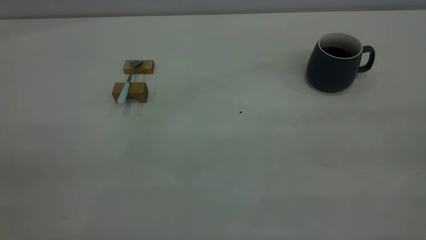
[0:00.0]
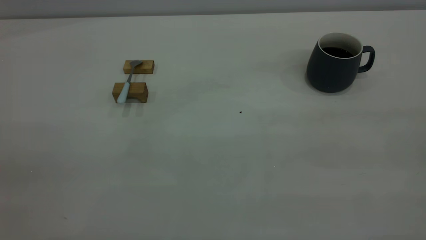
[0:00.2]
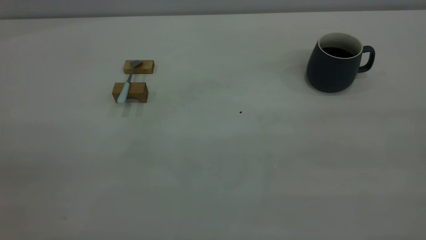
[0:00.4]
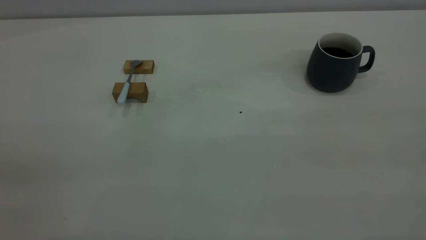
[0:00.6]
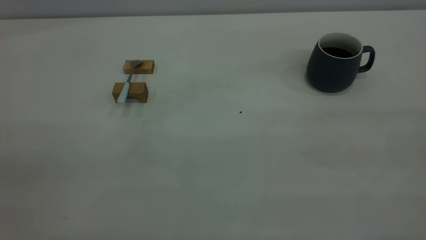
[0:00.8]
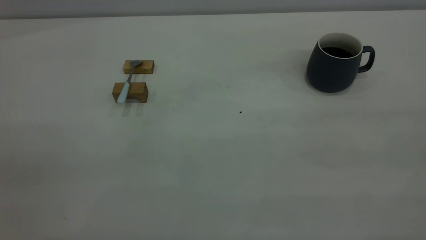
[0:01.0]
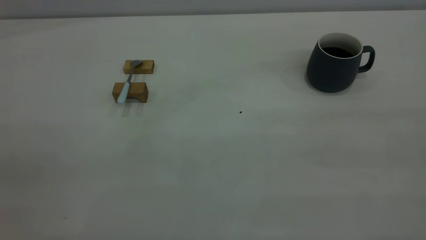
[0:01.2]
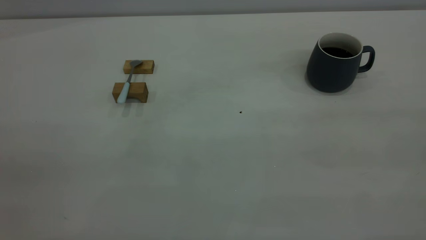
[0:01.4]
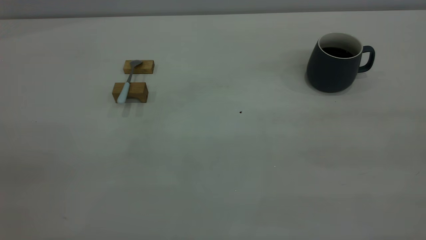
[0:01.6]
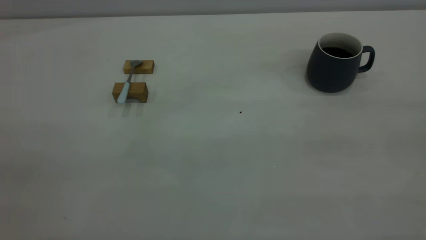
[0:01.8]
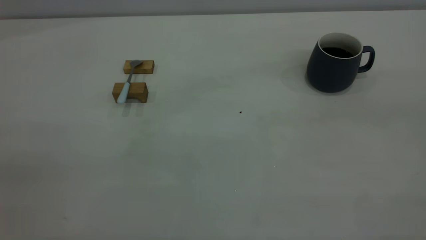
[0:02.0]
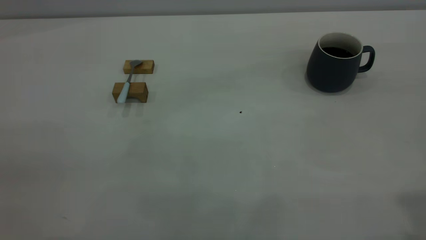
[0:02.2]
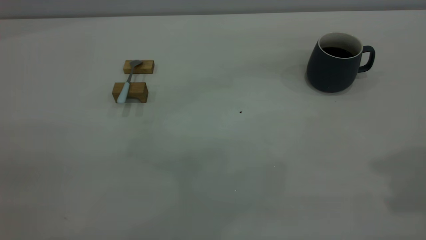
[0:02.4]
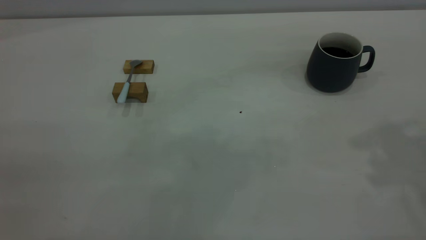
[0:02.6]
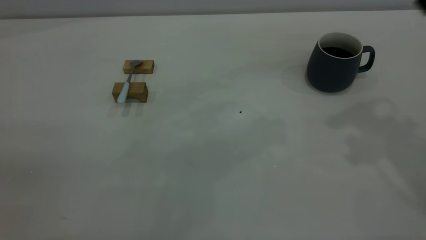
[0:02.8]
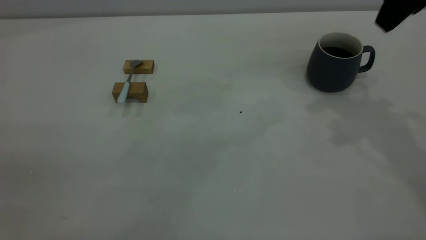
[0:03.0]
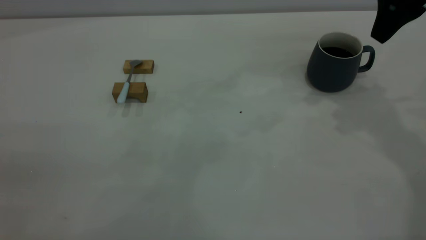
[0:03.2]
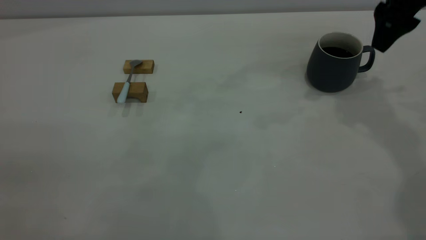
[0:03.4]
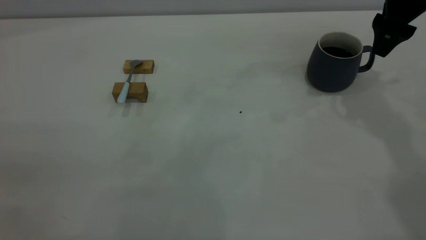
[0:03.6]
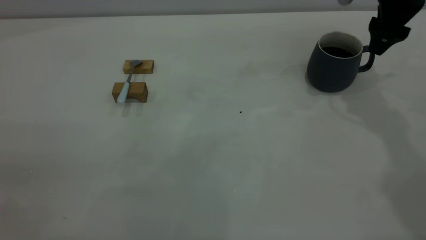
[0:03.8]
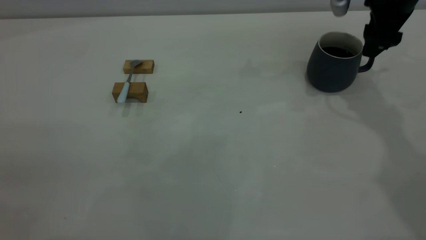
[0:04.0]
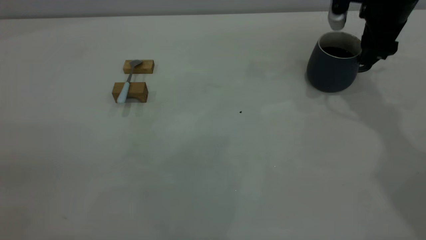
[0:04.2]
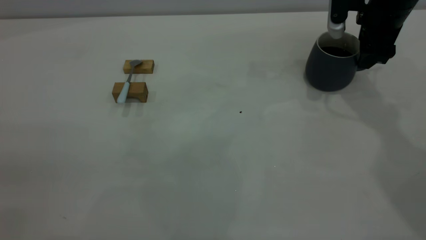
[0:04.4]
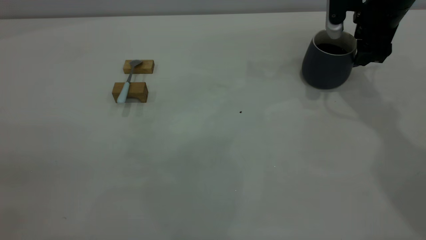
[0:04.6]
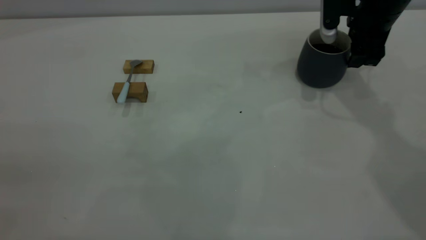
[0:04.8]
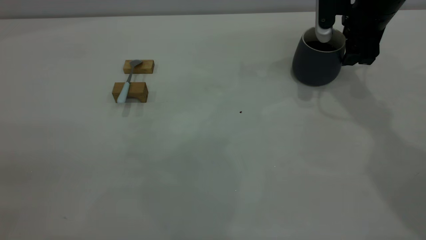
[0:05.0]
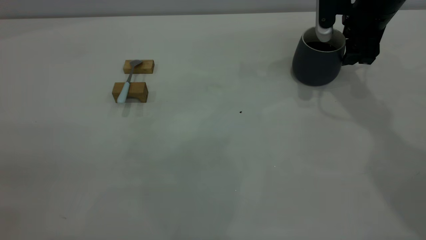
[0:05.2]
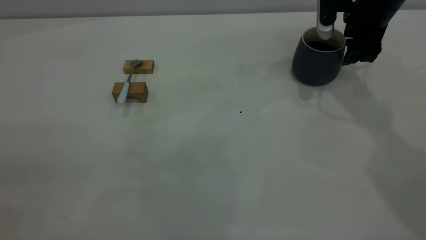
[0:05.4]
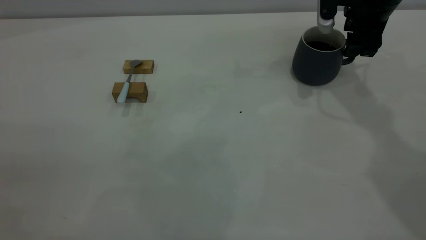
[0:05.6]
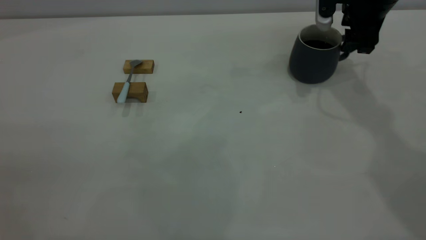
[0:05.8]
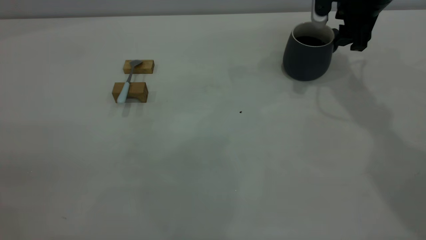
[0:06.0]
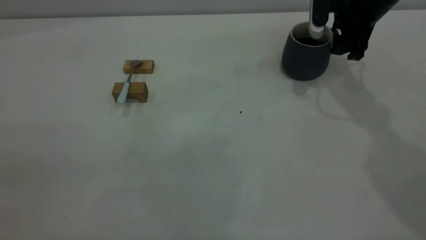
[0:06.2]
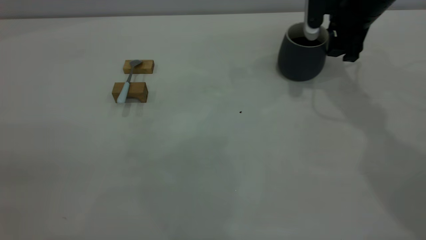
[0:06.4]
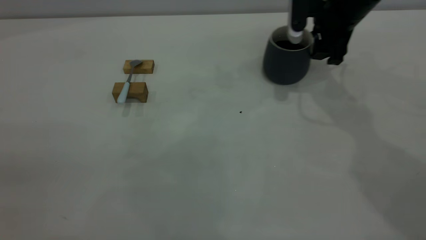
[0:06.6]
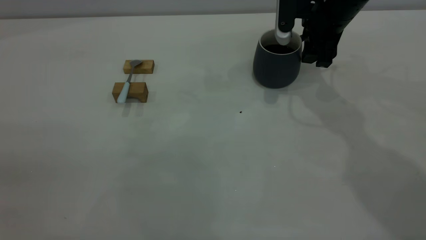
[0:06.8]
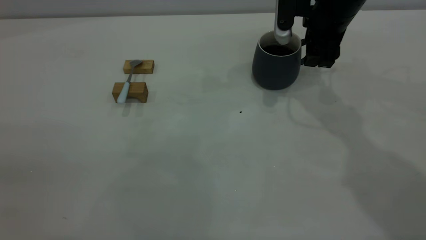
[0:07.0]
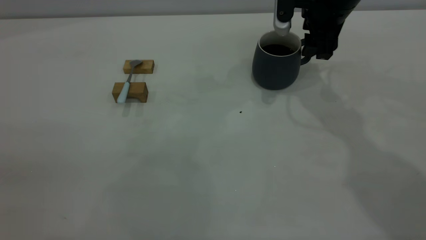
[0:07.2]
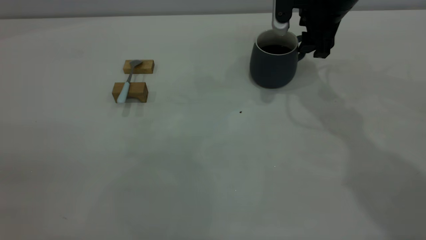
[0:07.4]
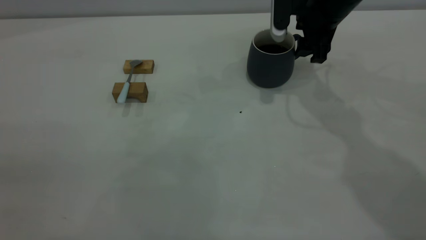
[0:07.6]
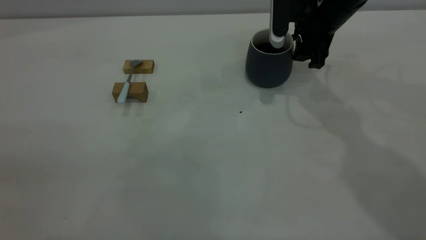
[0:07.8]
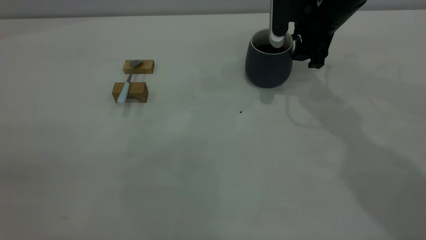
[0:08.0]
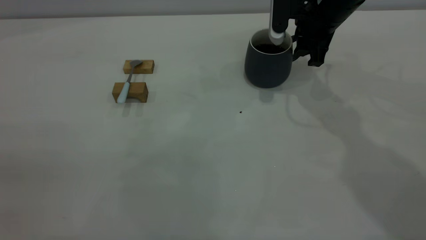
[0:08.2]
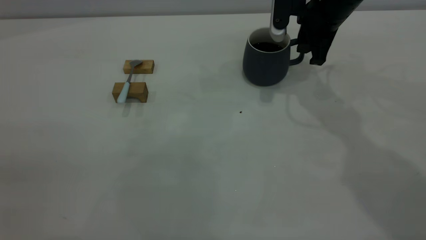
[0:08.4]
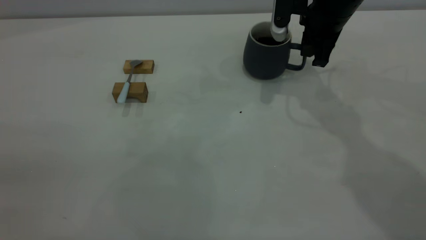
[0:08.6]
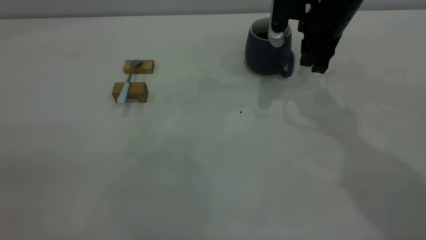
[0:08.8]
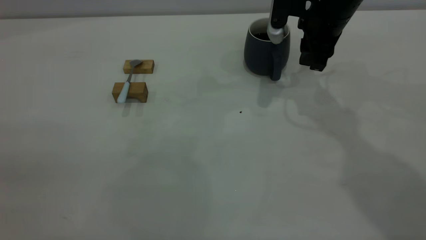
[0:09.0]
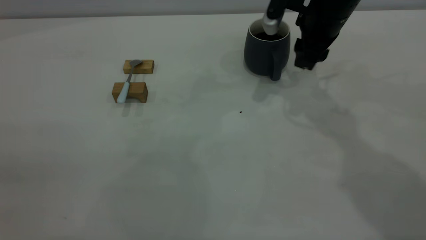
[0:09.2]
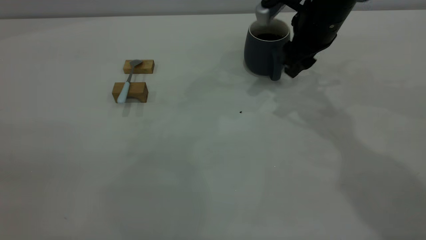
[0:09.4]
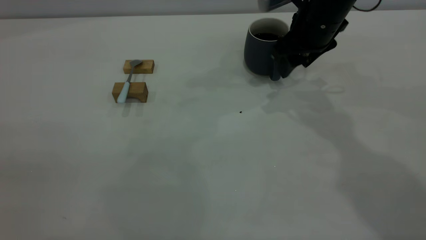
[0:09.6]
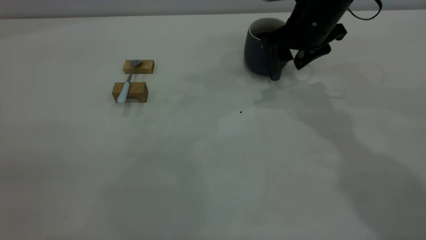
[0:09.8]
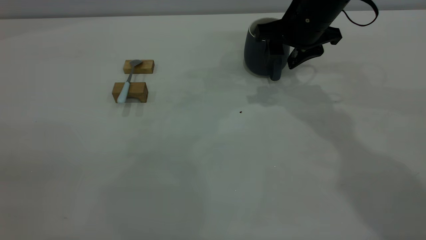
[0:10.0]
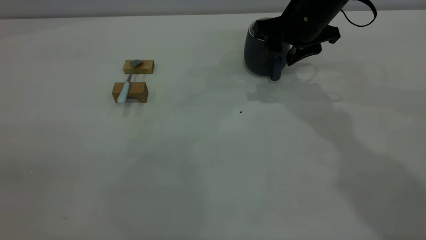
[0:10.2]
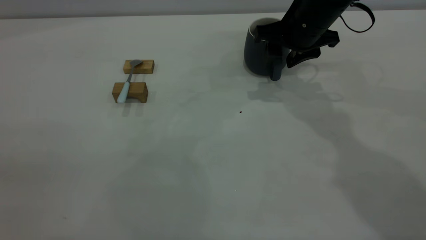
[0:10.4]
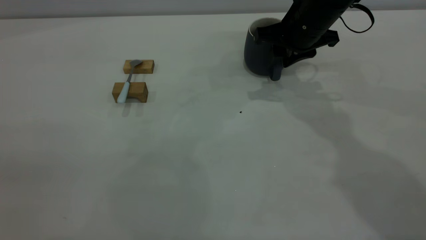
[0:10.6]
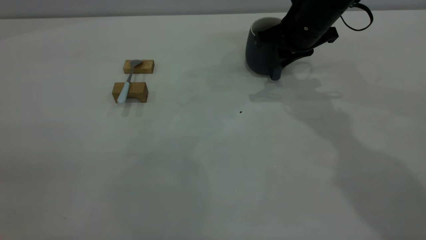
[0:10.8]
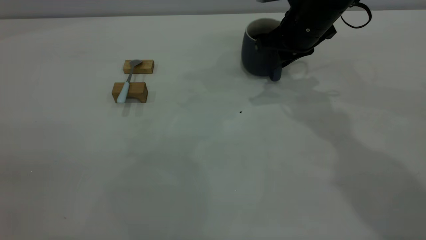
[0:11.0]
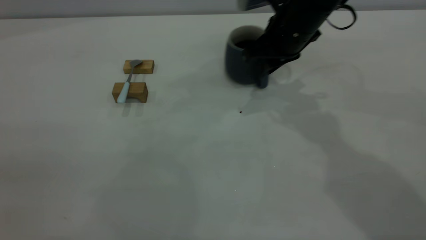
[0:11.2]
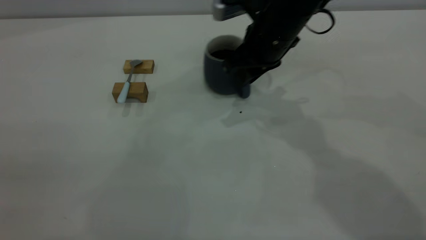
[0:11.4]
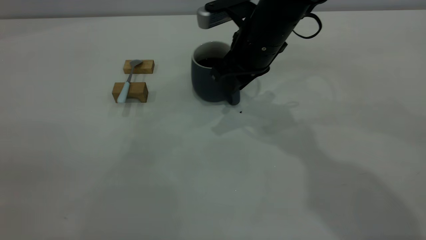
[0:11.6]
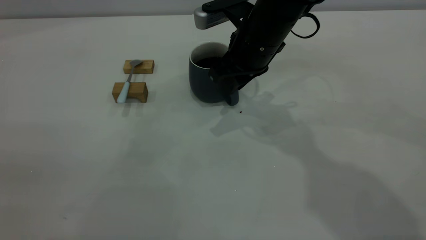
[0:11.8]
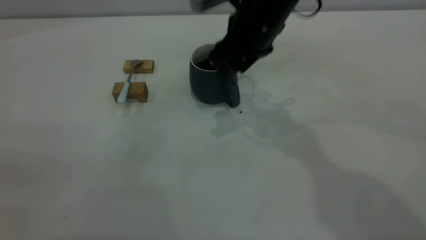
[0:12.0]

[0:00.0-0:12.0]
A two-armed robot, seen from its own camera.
0:00.0 to 0:01.6: The two grippers keep their place.
0:01.6 to 0:03.0: The right gripper moves forward, approximately 35 cm, and opens.
0:03.0 to 0:04.4: The right gripper heads downward and forward, covering roughly 15 cm.
0:04.4 to 0:06.0: The grippers move only a little.
0:06.0 to 0:07.6: The right gripper heads to the left, covering roughly 5 cm.
0:07.6 to 0:09.0: The right gripper closes up.
0:10.4 to 0:12.0: The right gripper moves to the left and upward, roughly 10 cm, and closes, then opens again.

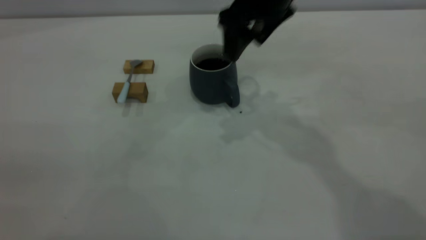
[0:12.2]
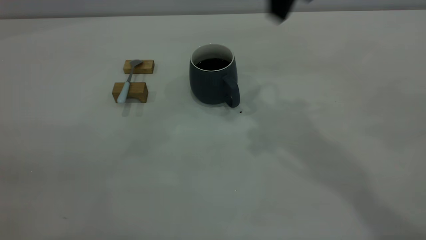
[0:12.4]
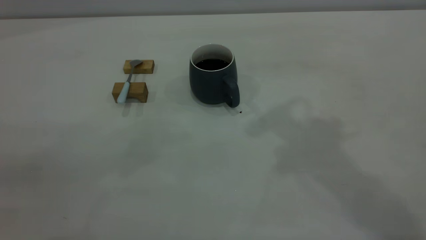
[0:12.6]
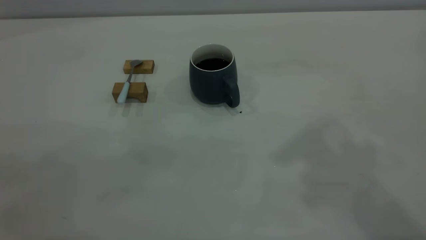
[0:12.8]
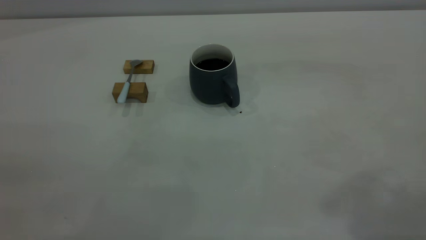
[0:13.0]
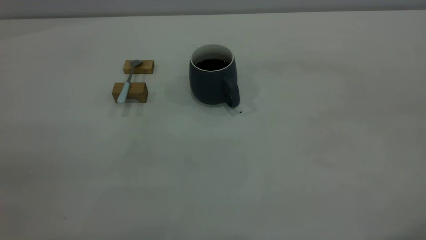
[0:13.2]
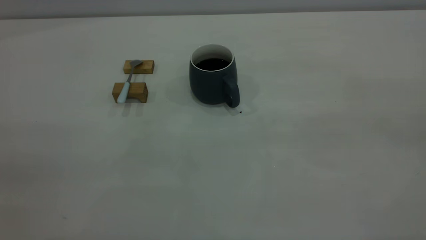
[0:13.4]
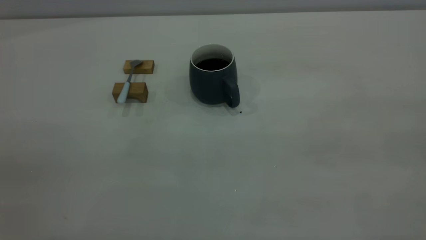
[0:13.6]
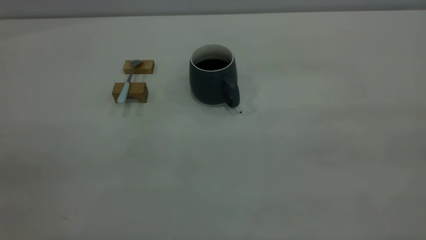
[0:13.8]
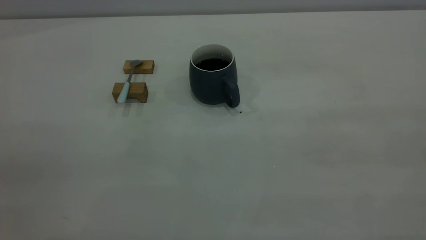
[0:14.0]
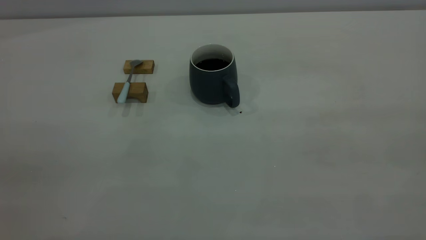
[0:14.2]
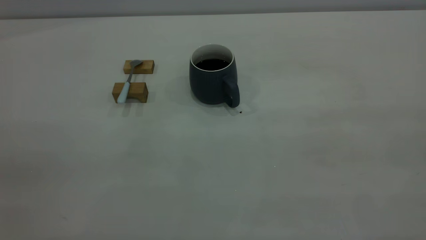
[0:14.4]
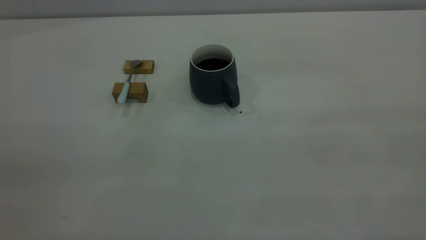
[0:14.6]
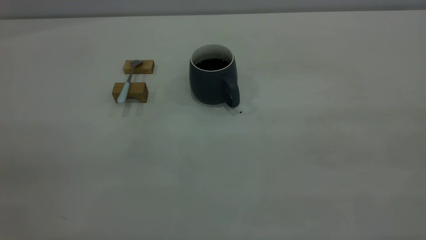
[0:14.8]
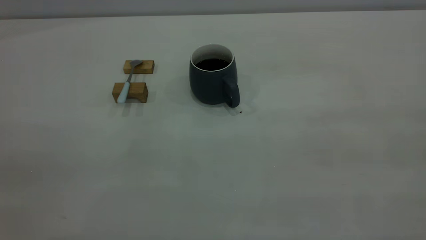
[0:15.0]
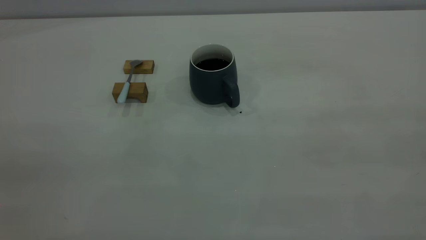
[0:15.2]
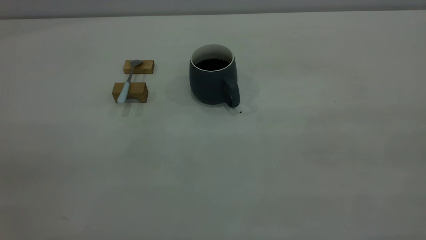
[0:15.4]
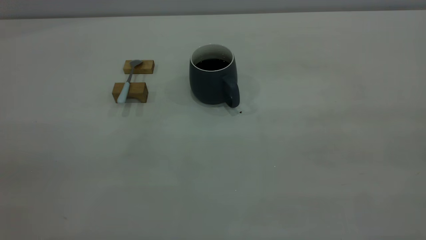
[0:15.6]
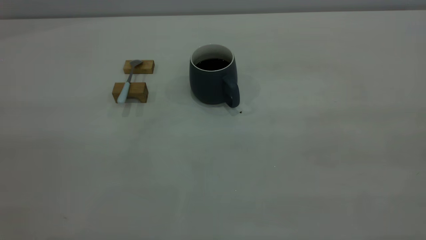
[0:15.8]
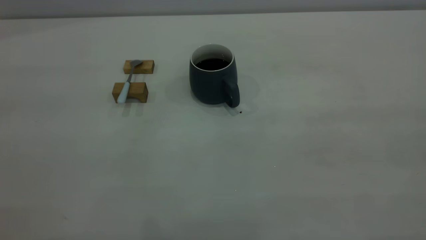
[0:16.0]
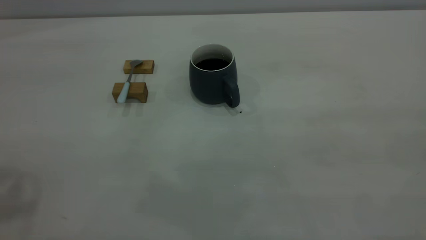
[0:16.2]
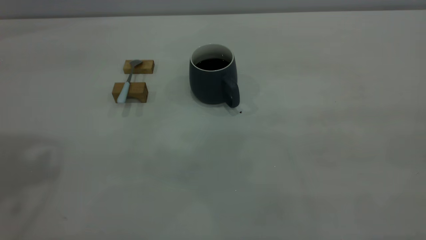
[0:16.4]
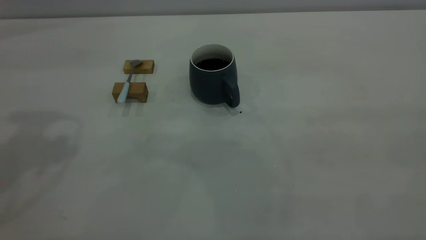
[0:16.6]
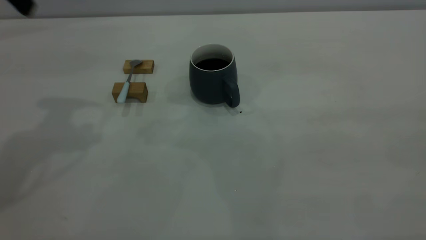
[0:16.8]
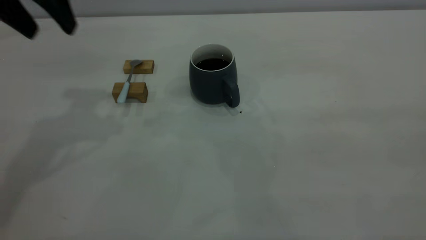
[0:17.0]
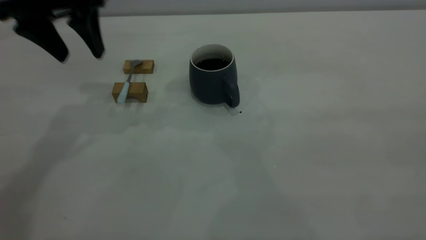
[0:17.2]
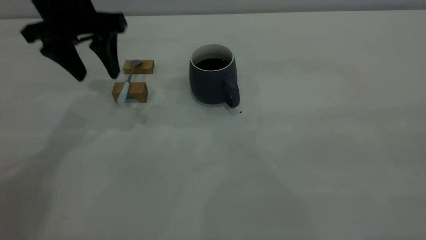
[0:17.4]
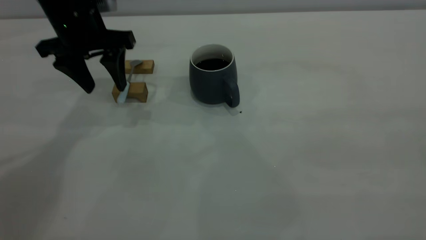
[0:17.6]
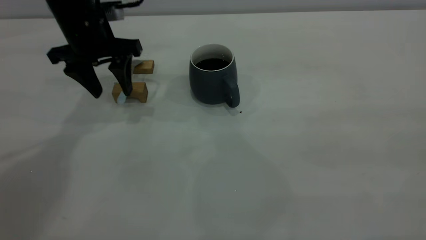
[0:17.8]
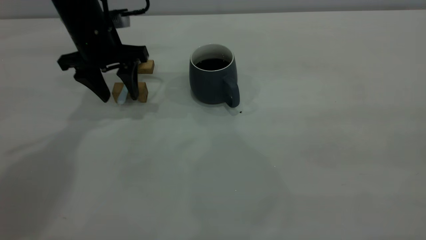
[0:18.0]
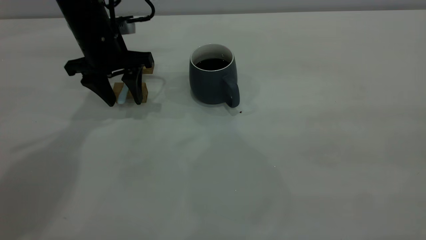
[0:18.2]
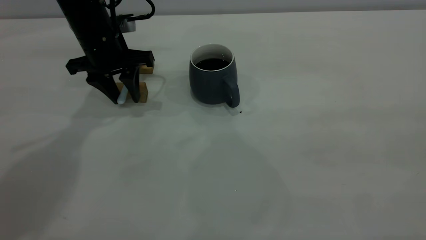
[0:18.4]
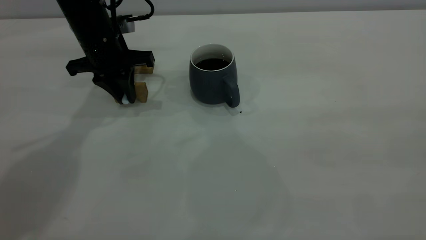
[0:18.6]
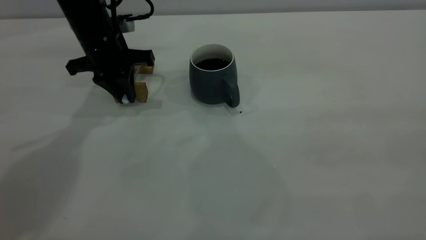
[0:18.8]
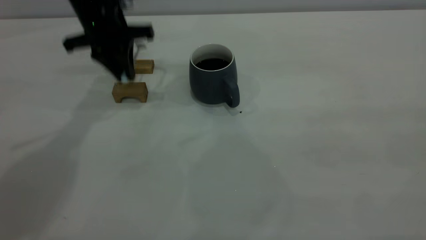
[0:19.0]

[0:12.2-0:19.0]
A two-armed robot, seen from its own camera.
Step, 0:12.4 to 0:19.0: Pick up the spoon.
0:12.2 to 0:13.6: The right gripper travels backward and to the right by some 40 cm.
0:16.2 to 0:17.6: The left gripper heads downward and forward, covering about 35 cm.
0:17.6 to 0:19.0: The left gripper changes place by some 5 cm, and closes its fingers.
